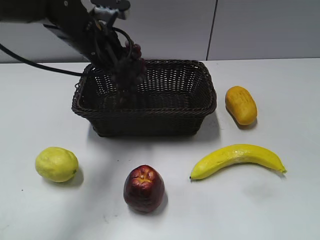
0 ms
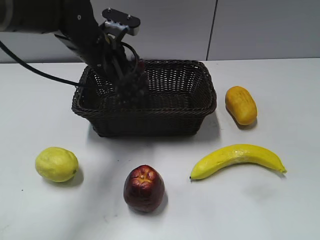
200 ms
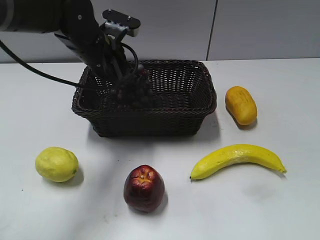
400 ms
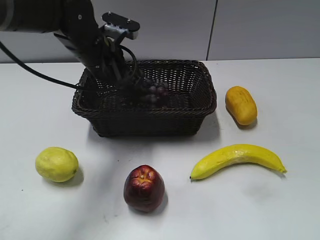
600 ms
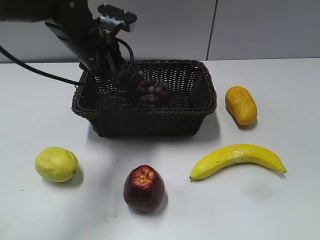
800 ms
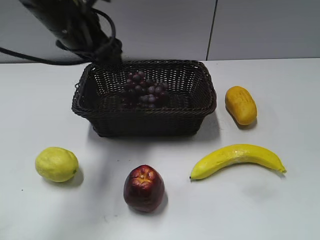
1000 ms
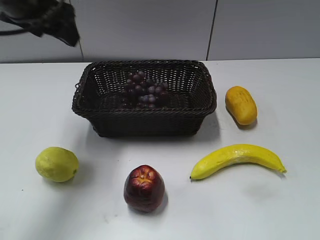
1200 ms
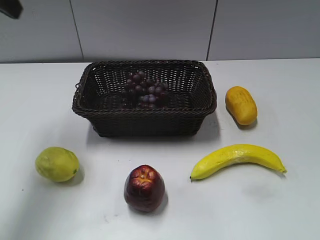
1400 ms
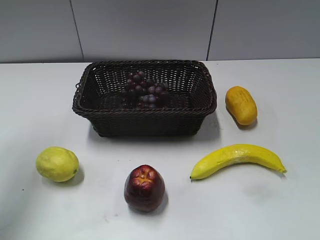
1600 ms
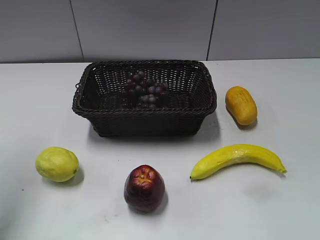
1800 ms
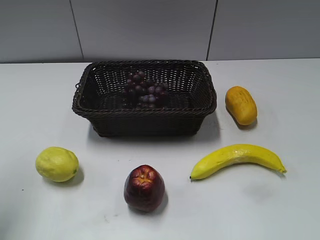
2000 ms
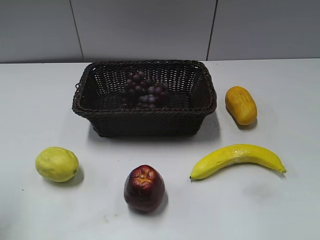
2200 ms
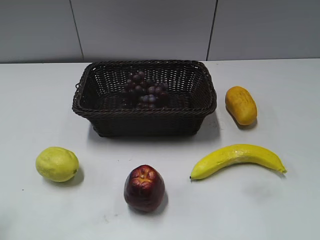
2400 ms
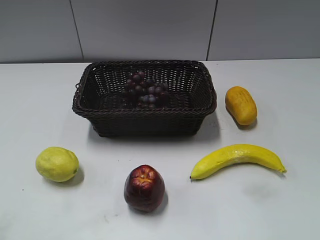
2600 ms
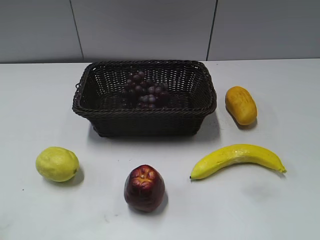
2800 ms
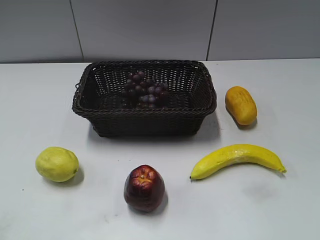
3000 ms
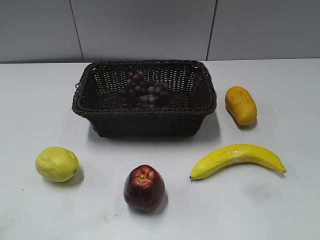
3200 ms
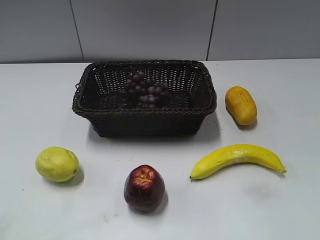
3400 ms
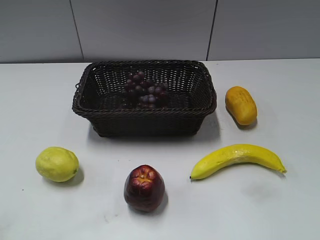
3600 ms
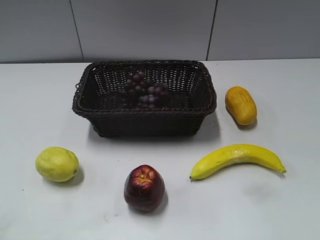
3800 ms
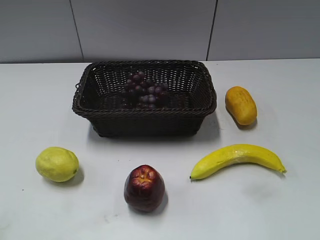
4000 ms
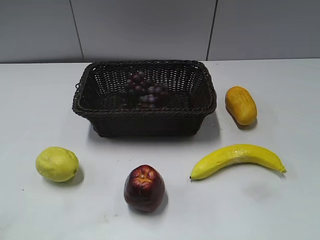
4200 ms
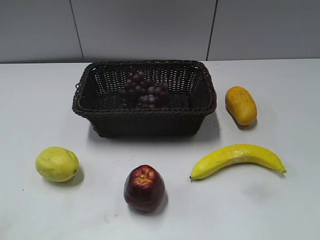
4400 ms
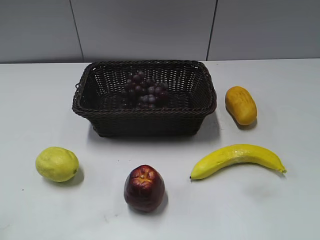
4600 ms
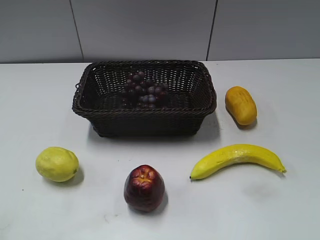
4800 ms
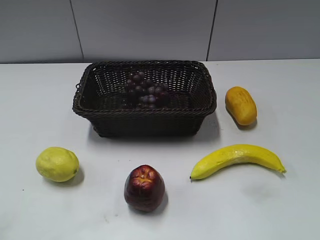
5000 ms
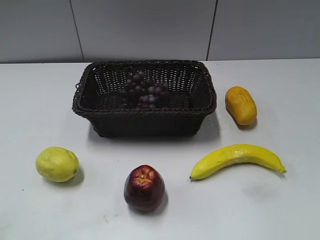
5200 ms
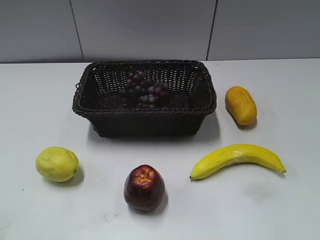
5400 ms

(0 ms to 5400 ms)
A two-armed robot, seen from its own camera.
0 ms - 1400 ms: The left gripper is displaced upward, to the left and backward by some 25 cm, and opens its fingers.
1400 ms - 2800 ms: The left gripper moves backward, roughly 25 cm.
